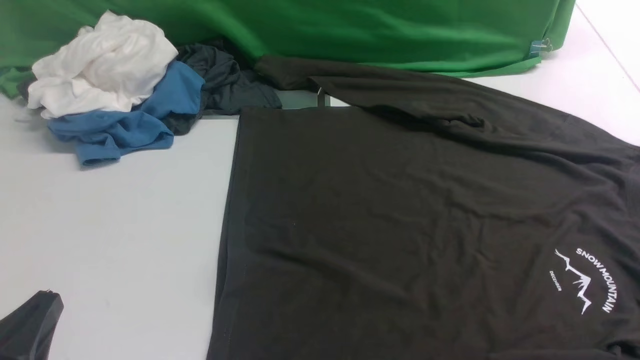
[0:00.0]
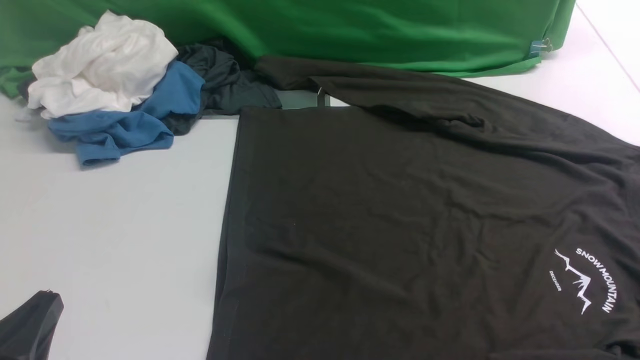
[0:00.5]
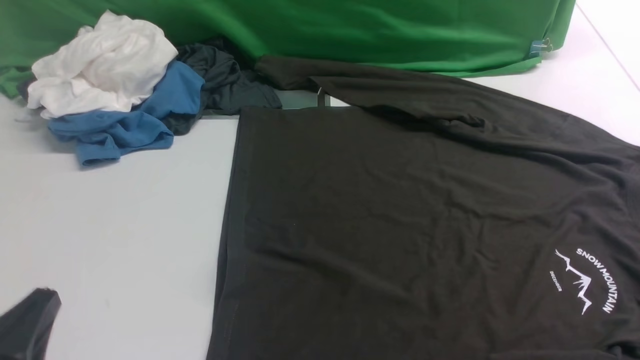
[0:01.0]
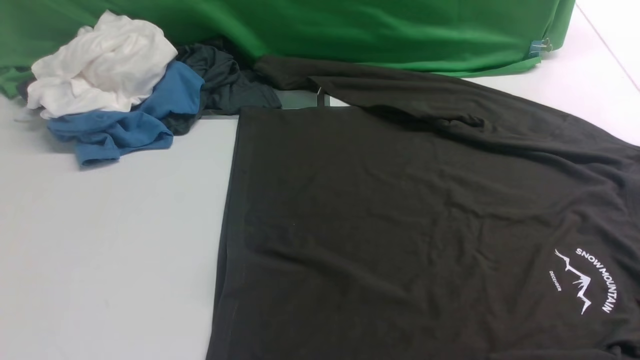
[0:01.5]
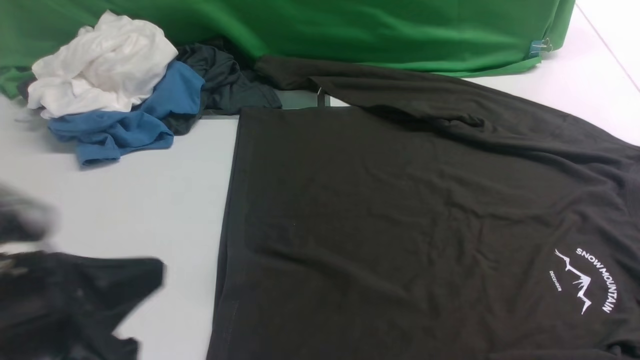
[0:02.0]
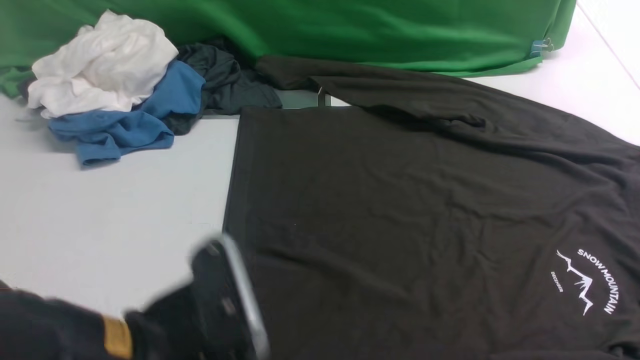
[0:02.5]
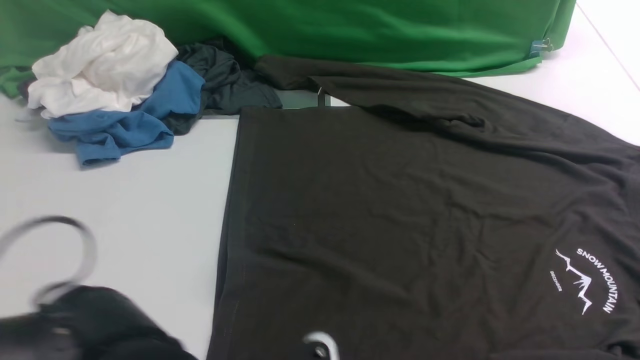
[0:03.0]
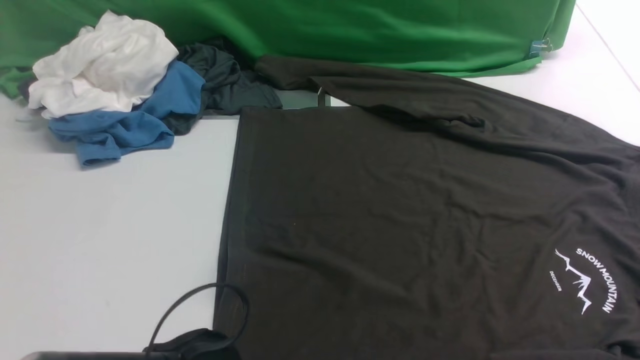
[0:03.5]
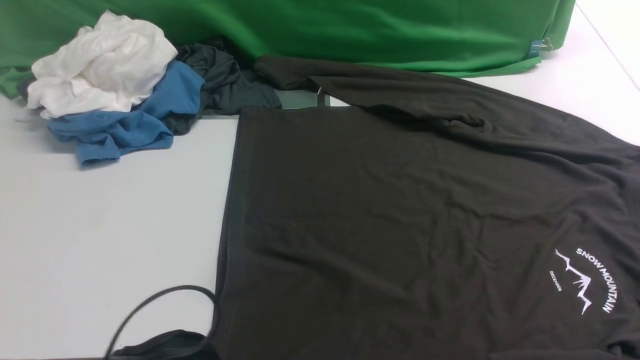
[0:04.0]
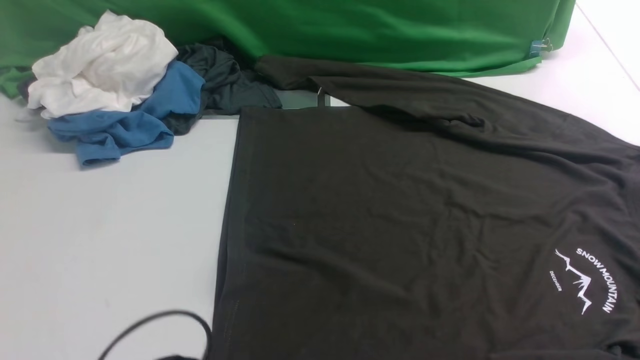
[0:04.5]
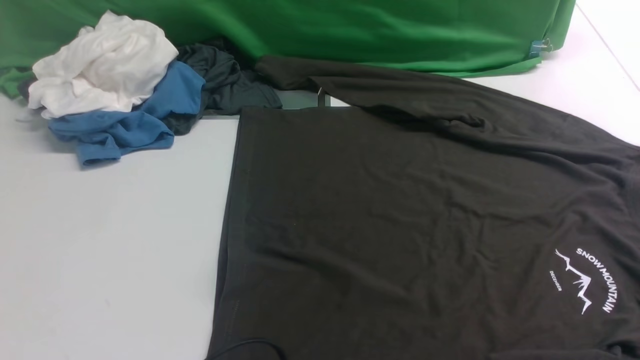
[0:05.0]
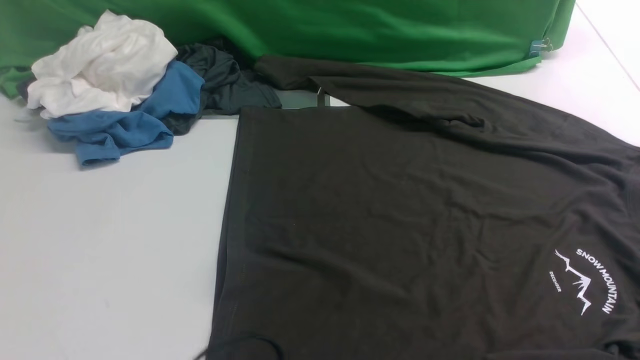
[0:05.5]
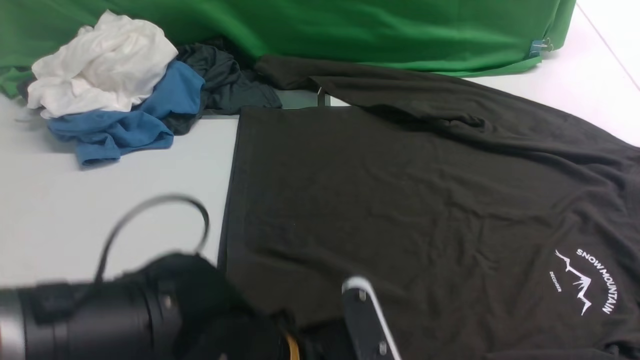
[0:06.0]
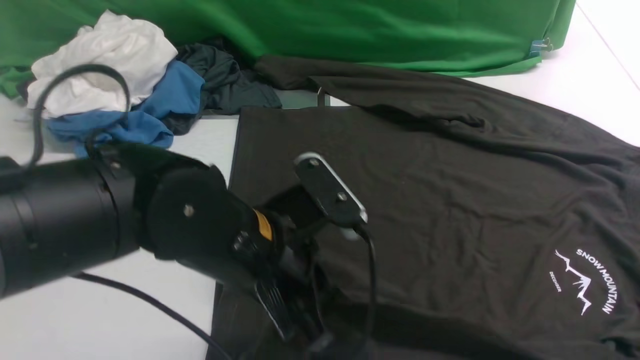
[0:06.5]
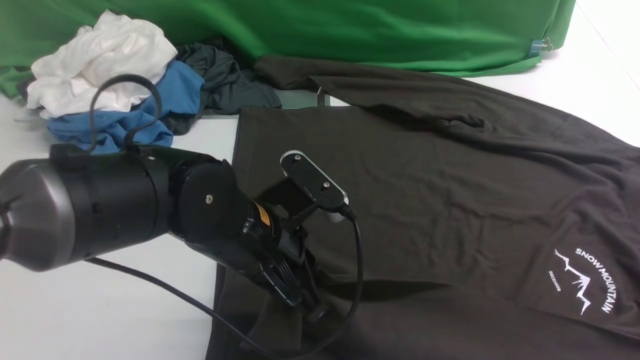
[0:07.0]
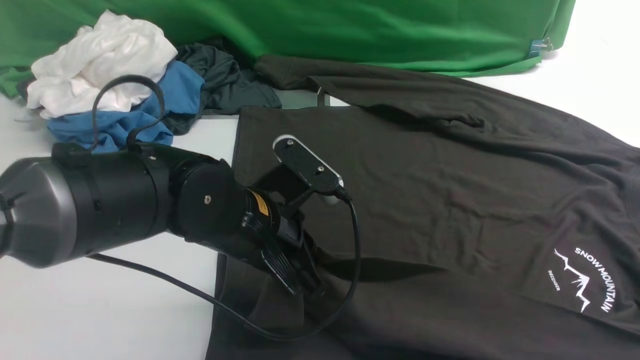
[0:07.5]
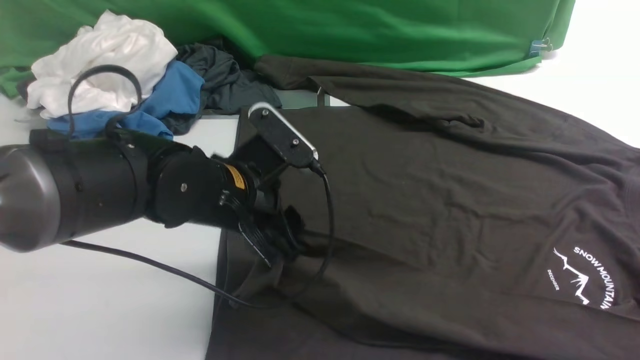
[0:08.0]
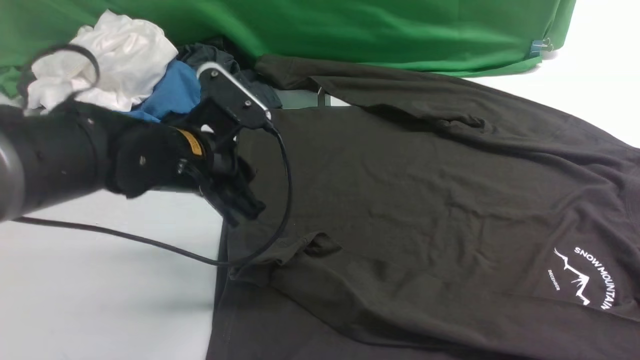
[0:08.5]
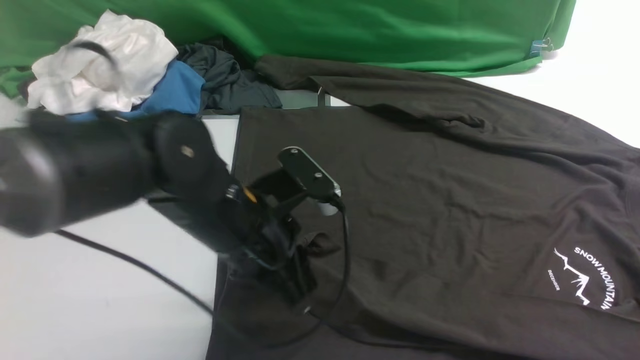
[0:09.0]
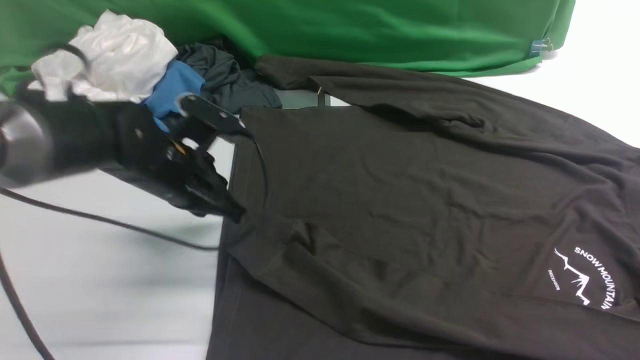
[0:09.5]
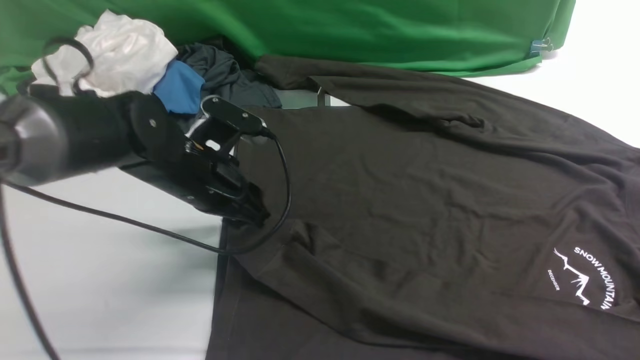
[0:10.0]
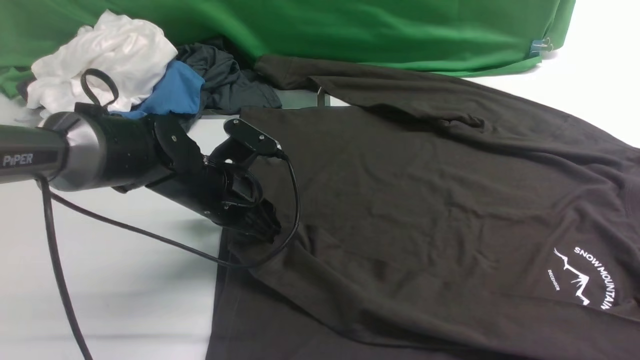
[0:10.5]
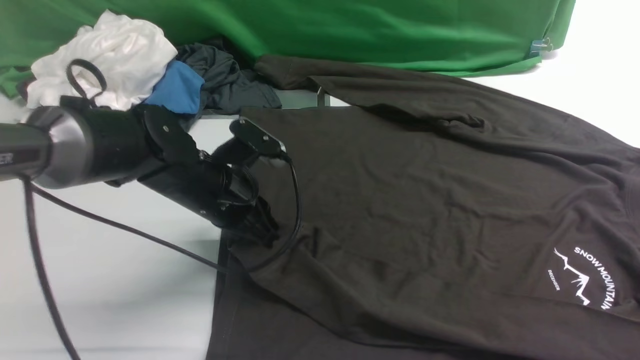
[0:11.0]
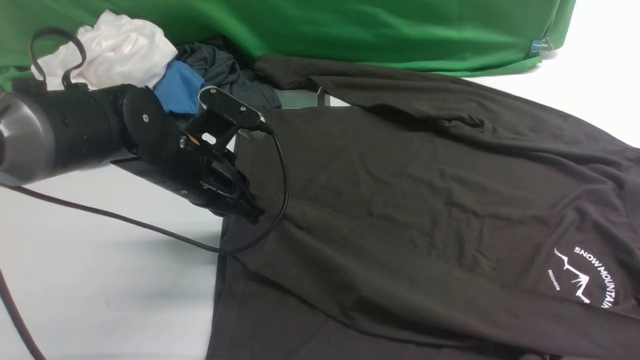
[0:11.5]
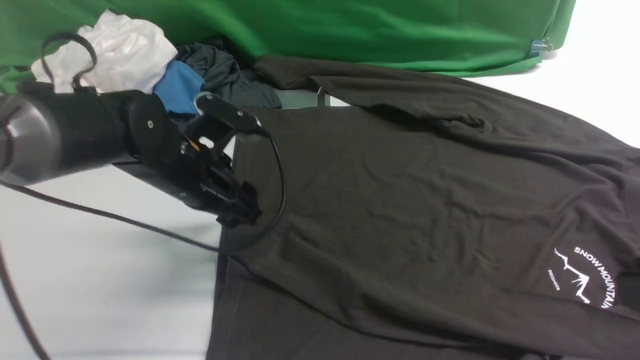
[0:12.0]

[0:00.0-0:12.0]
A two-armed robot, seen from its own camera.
Step, 0:00.0 to 0:05.5: use the left arm to clamp the cuff closest to it.
0:00.0 to 0:02.0: The left gripper shifts some 10 cm upward and forward.
0:02.0 to 0:04.0: The left gripper travels to the right and downward by some 20 cm, and opens, then closes once more.
0:04.0 to 0:06.0: The left gripper changes place by some 5 cm, and opens, then closes once more.
0:06.0 to 0:08.0: The left gripper moves forward and to the left, some 15 cm, and opens up.
0:08.0 to 0:10.0: The left gripper shifts by approximately 5 cm, and closes and opens again.
0:10.0 to 0:12.0: The right gripper travels forward by some 5 cm; the left gripper closes and opens again.

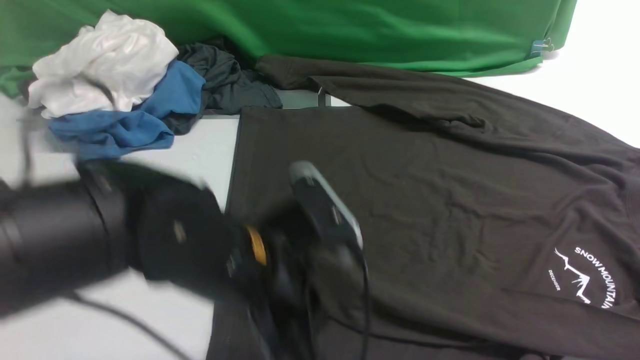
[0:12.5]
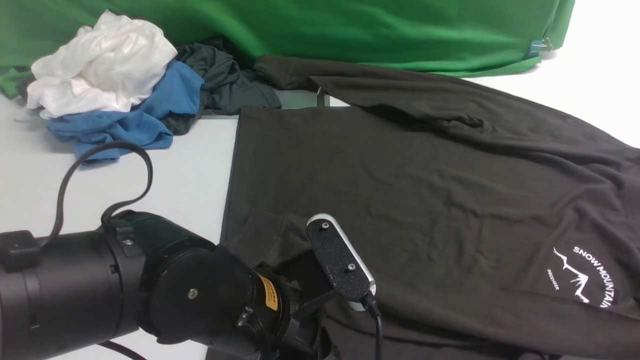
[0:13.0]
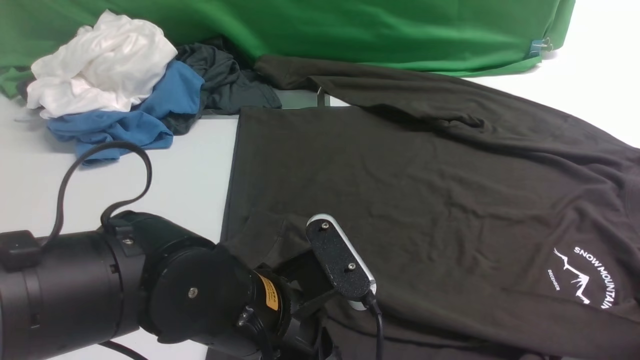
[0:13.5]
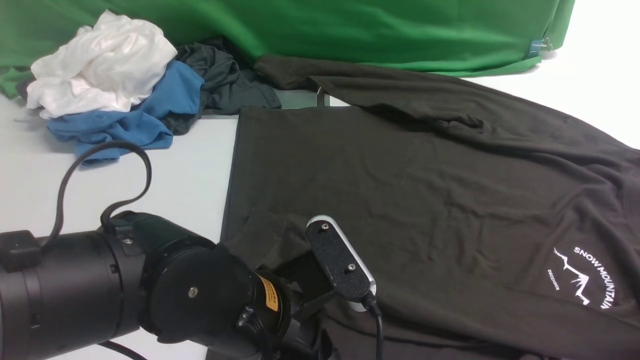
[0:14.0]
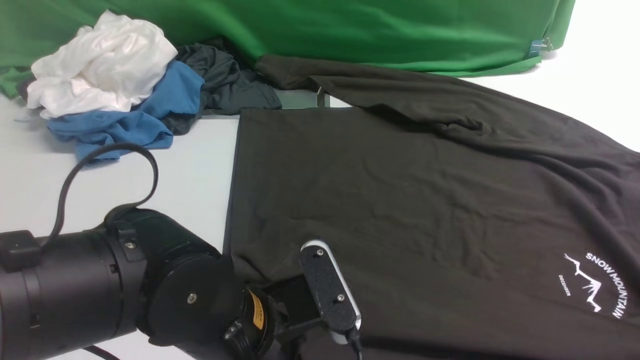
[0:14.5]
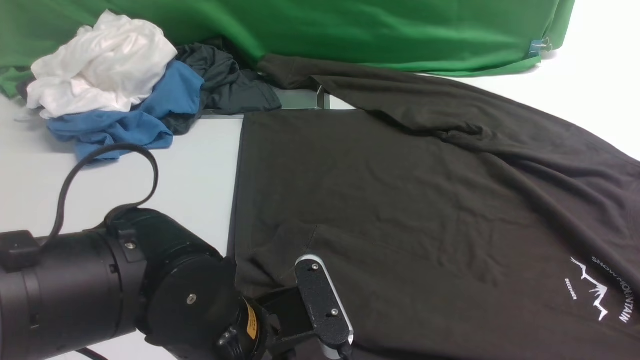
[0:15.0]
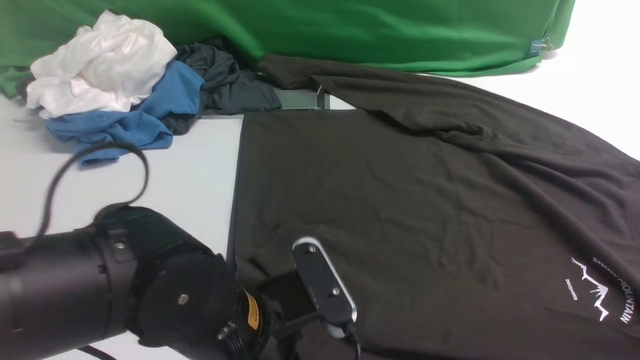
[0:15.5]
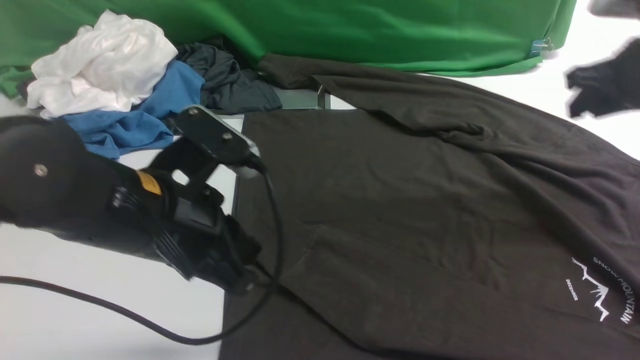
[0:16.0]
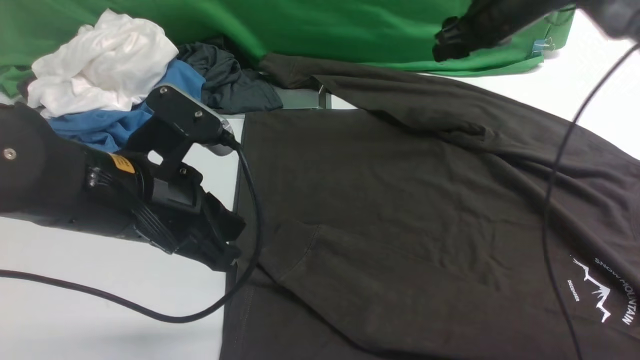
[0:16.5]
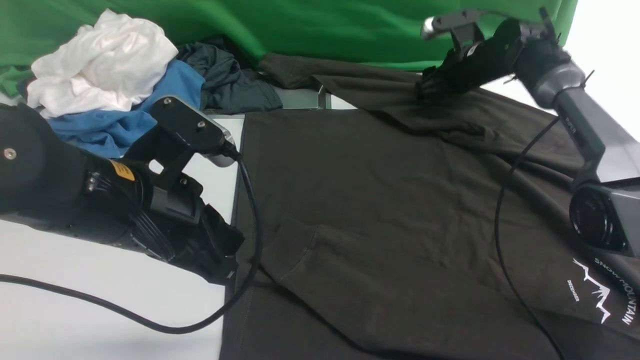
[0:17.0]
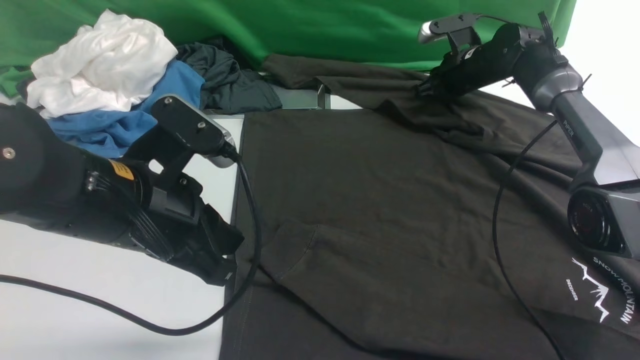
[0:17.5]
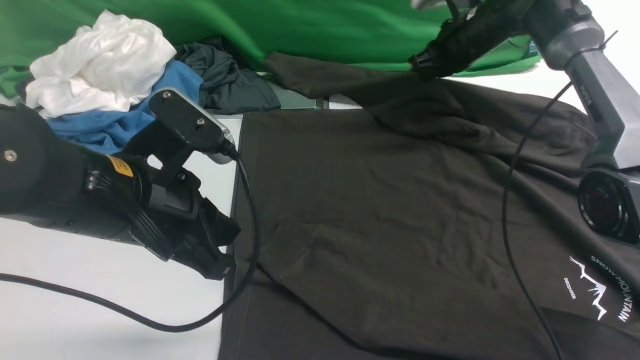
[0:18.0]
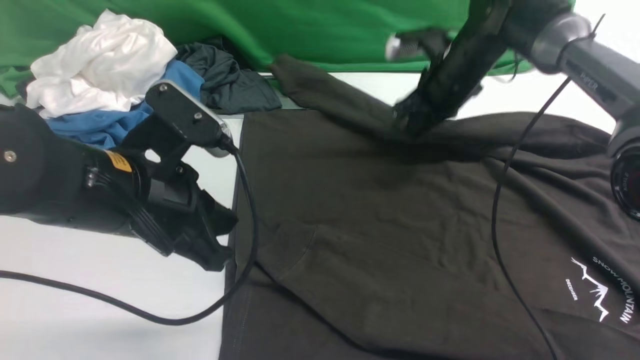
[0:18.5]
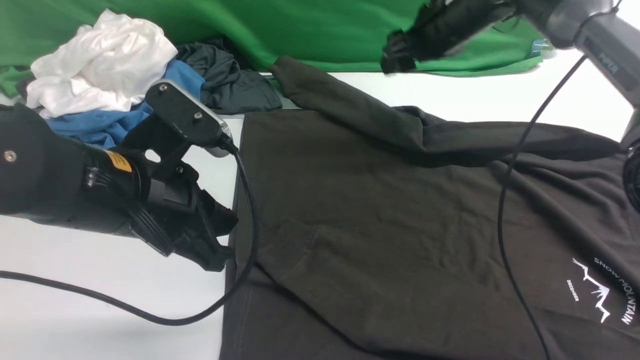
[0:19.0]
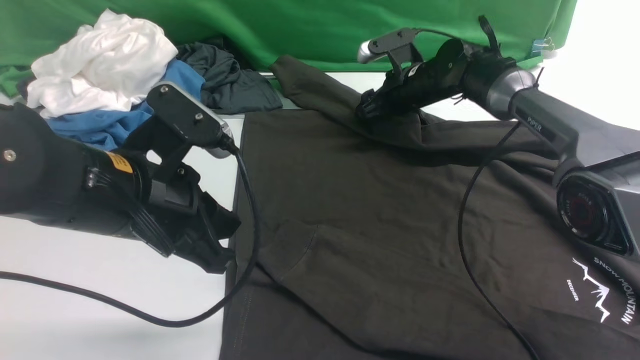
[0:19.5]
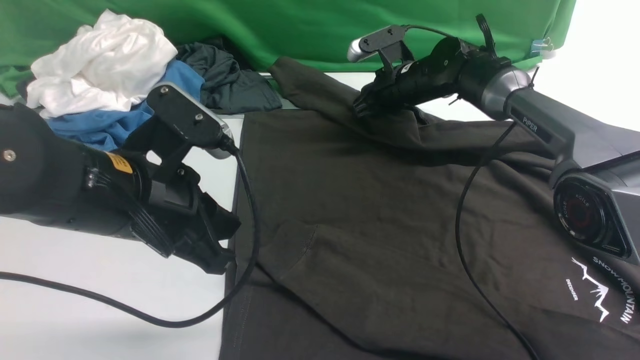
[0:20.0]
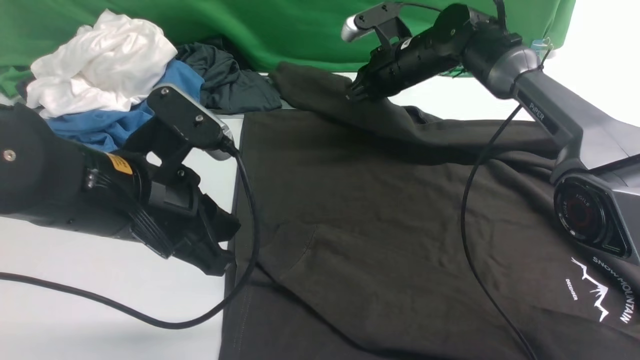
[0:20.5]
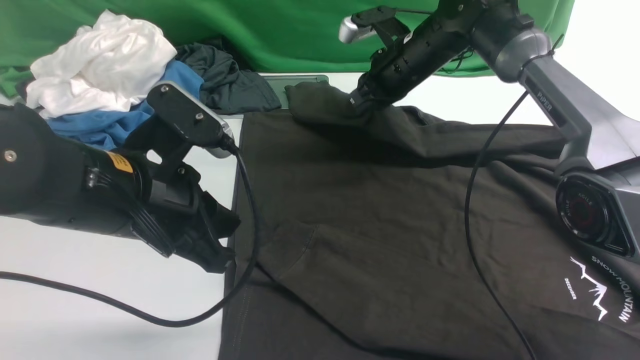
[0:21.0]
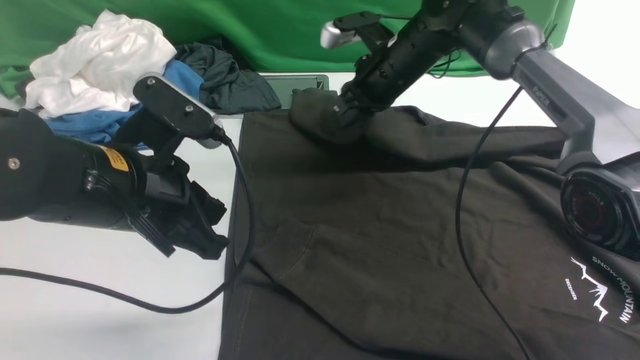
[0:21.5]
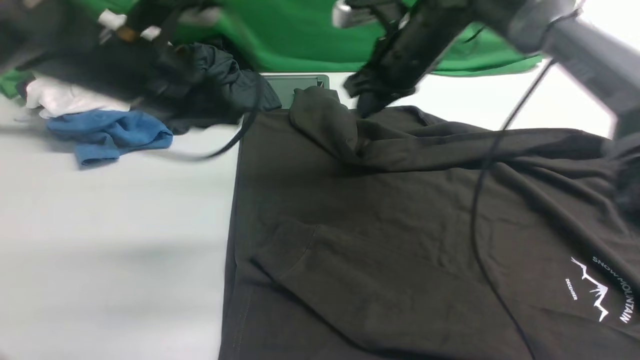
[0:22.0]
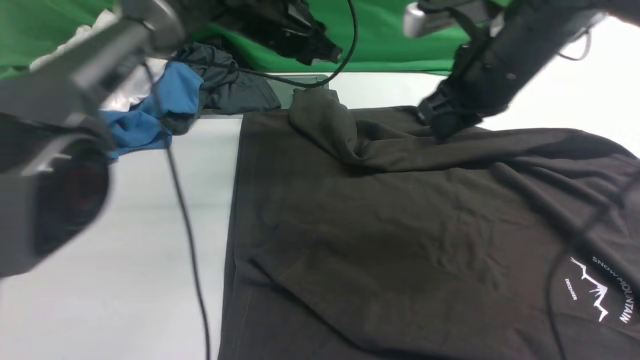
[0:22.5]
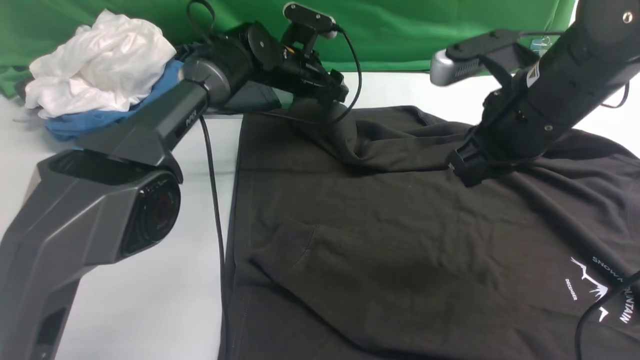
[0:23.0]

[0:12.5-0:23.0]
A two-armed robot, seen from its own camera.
0:12.5 to 0:14.5: The left gripper ends up roughly 5 cm from where it was. The right gripper travels to the right and downward by about 15 cm, and closes its fingers.
0:14.5 to 0:16.5: The left gripper shifts approximately 15 cm to the left, upward and forward; the right gripper is displaced forward and to the left by about 40 cm, and opens its fingers.
0:16.5 to 0:19.0: The right gripper shifts about 10 cm to the left, reaches approximately 10 cm downward, then returns, and closes, then opens again.
0:19.0 to 0:21.0: The right gripper reaches about 10 cm downward, then returns, and closes its fingers.
0:21.0 to 0:23.0: The left gripper goes about 35 cm forward, and opens. The right gripper is displaced backward and upward by some 20 cm.
